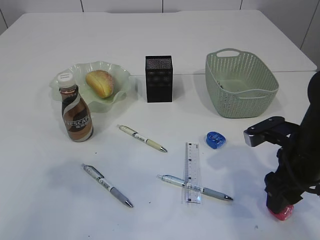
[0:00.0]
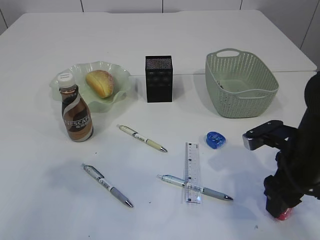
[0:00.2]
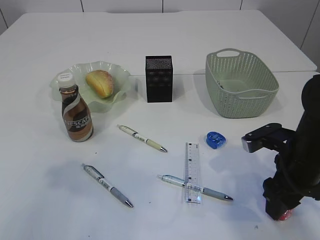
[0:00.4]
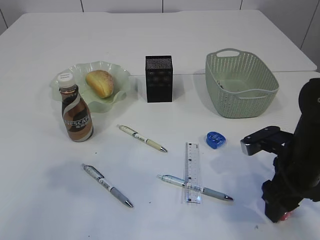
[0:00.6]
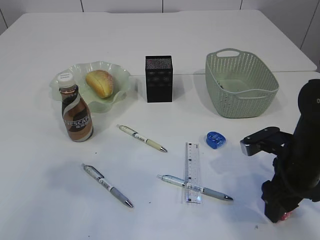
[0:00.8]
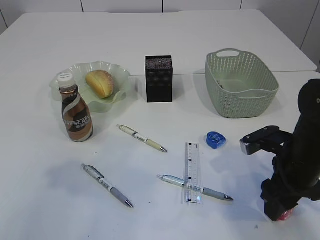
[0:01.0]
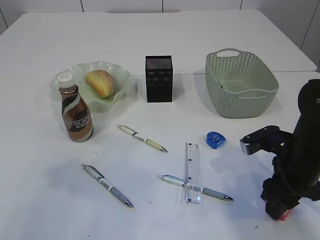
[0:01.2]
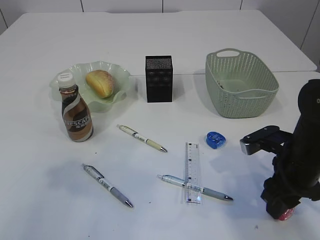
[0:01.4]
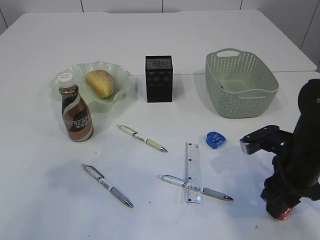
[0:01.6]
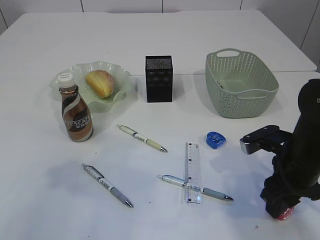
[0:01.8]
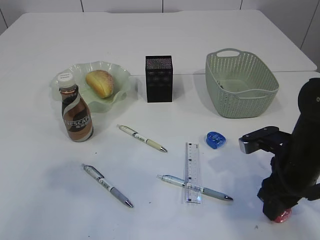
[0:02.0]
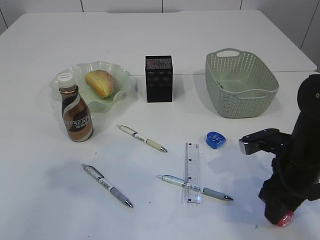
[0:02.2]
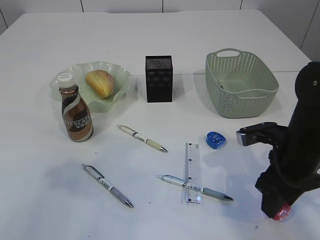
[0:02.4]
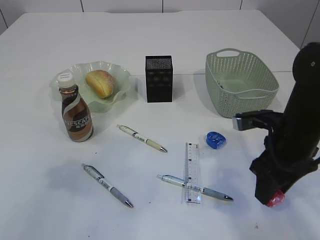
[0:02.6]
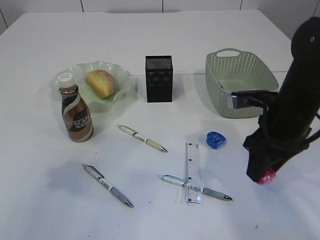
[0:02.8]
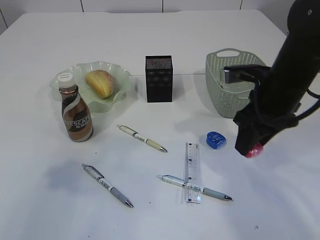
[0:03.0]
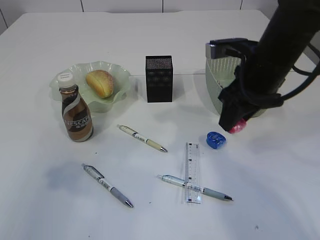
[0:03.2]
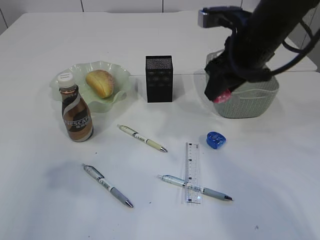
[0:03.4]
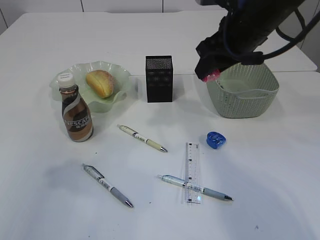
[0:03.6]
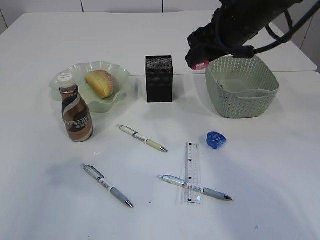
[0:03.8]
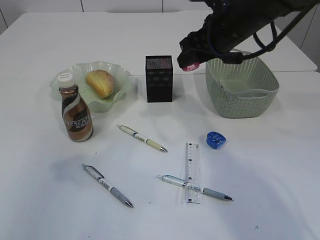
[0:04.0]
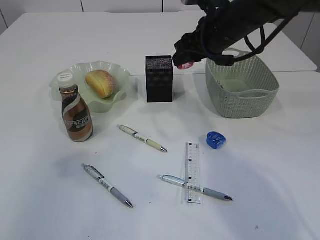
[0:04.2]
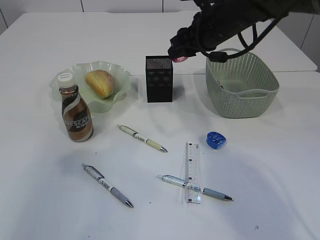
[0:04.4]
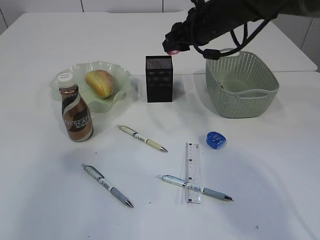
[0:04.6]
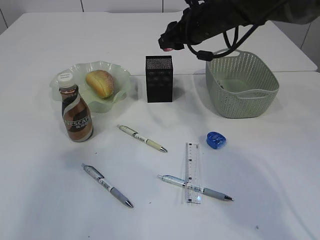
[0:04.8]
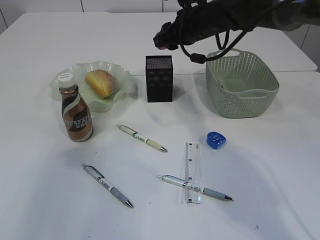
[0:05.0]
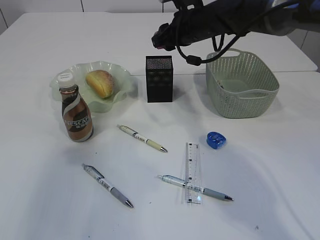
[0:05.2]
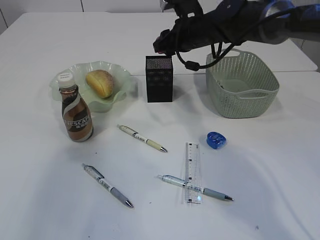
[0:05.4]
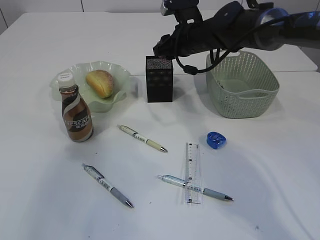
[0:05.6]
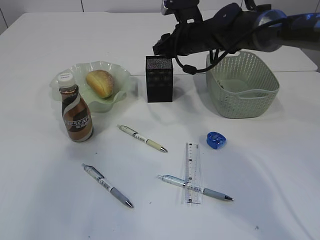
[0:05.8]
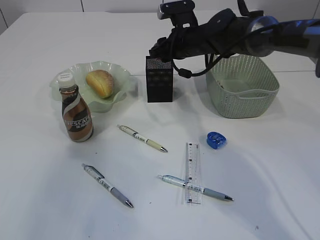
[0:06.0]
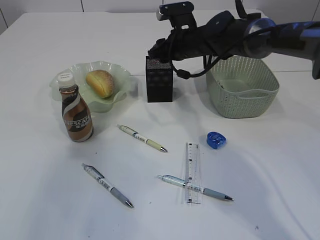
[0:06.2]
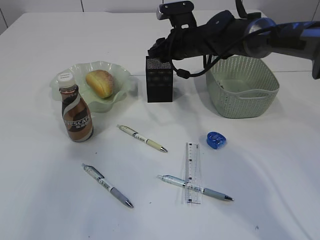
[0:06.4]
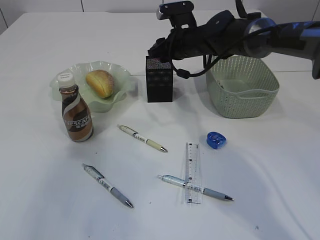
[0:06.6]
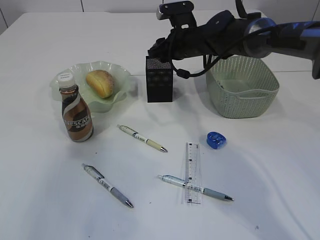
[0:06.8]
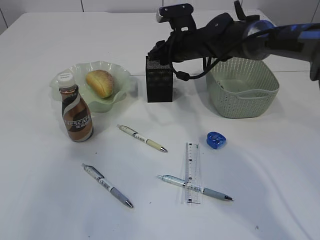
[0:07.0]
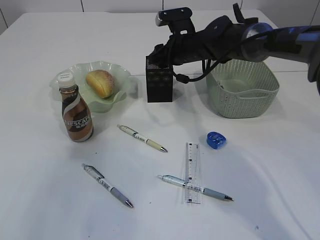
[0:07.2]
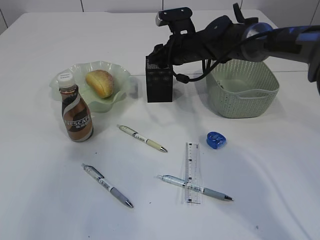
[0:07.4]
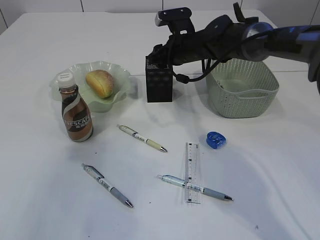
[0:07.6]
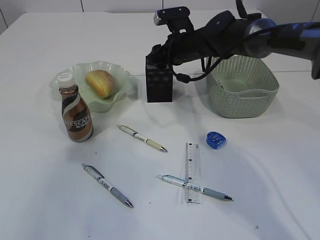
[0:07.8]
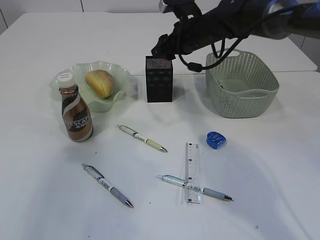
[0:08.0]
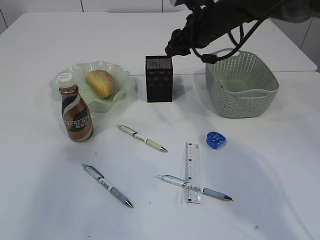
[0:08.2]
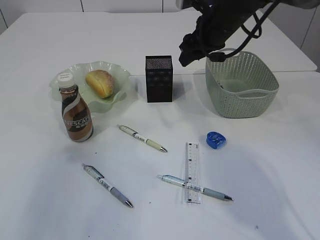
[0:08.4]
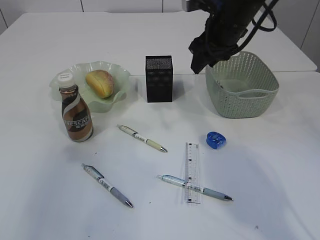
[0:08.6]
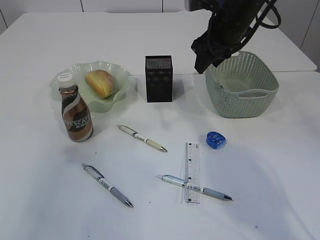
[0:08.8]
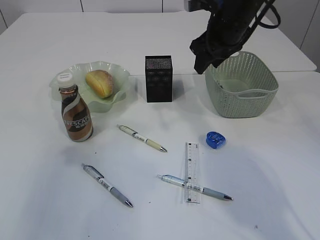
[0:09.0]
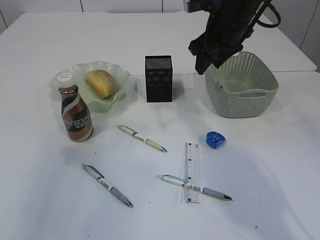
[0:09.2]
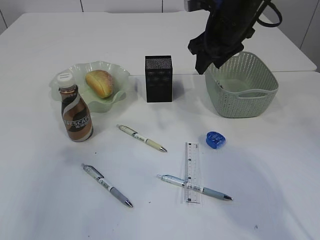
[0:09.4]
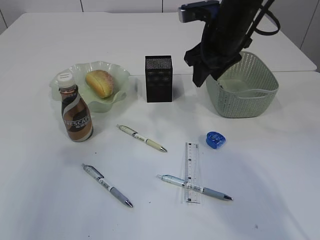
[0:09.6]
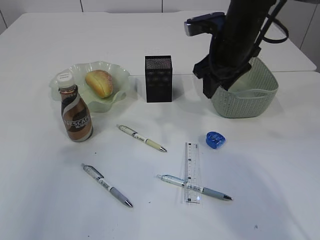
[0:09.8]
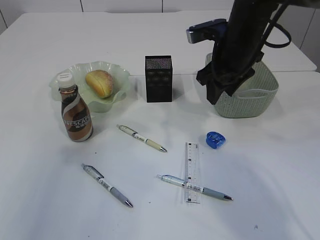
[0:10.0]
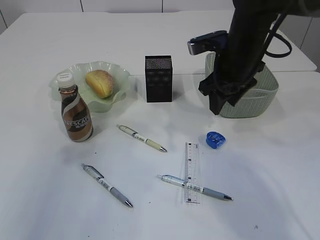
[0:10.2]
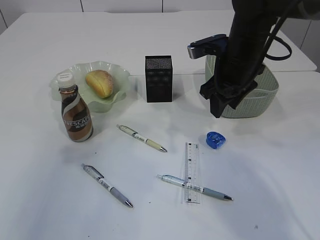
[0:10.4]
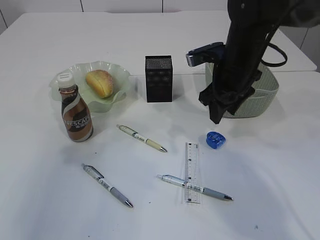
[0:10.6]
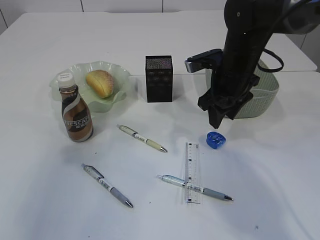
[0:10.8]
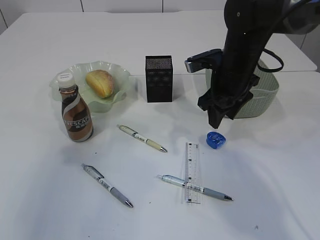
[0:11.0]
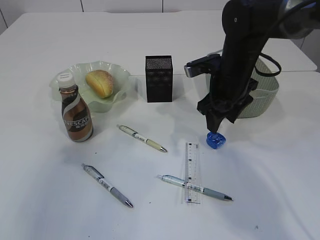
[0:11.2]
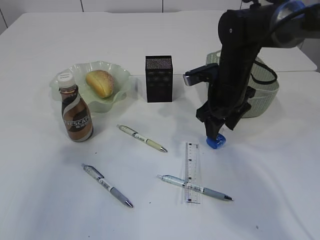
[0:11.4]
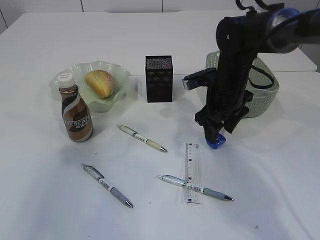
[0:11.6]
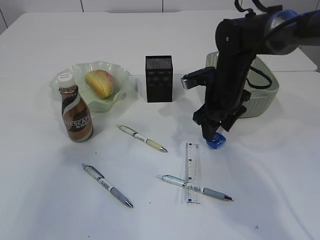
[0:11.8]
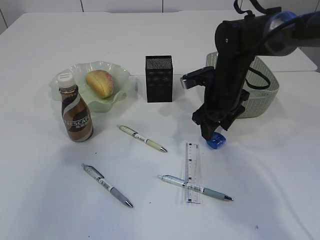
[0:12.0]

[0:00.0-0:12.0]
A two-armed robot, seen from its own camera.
Step, 0:00.0 to 0:02.8: Pick up the red pencil sharpener.
Step, 0:03.0 to 0:08.2: Place the red pencil sharpener into the pen holder.
0:00.0 to 0:01.6: The grippers stay close to where they were, moving slightly.
0:01.6 to 0:03.0: The right gripper travels upward and forward by some 10 cm.
0:03.0 to 0:04.4: The right gripper is displaced forward and to the left by some 15 cm.
0:04.4 to 0:06.0: The right gripper shifts roughly 10 cm forward and downward.
0:06.0 to 0:07.6: There are only small adjustments of the grippers.
0:07.6 to 0:09.0: The right gripper goes roughly 15 cm upward, backward and to the right.
0:09.0 to 0:10.4: The right gripper is displaced backward by some 5 cm.
0:10.4 to 0:12.0: The right gripper goes some 5 cm downward.

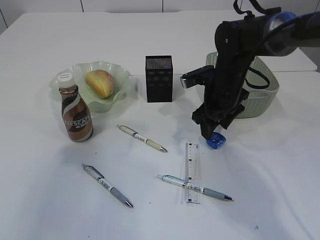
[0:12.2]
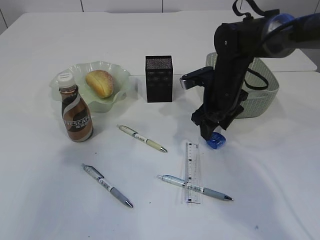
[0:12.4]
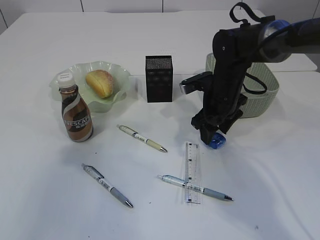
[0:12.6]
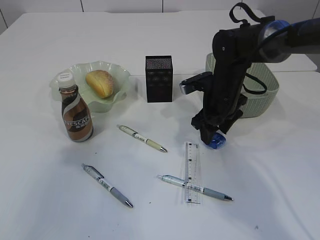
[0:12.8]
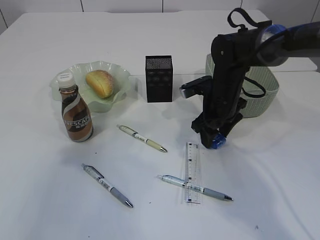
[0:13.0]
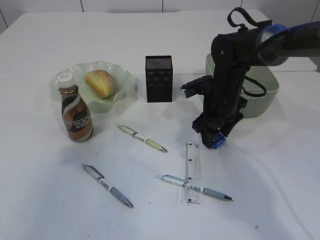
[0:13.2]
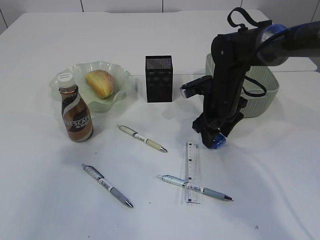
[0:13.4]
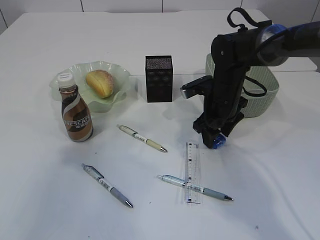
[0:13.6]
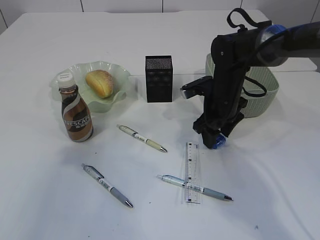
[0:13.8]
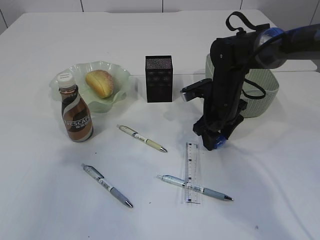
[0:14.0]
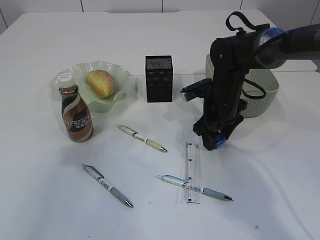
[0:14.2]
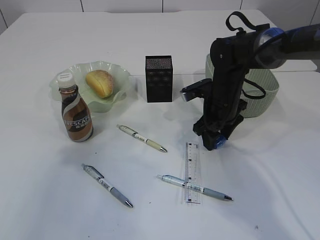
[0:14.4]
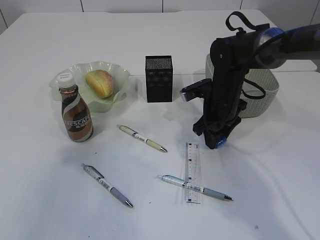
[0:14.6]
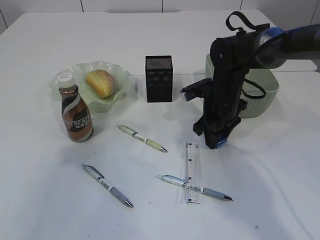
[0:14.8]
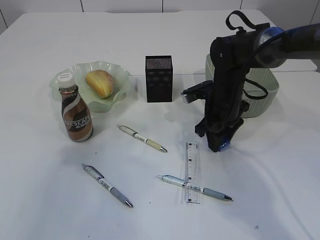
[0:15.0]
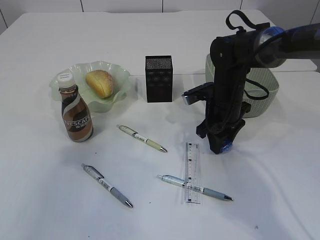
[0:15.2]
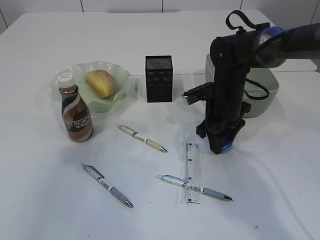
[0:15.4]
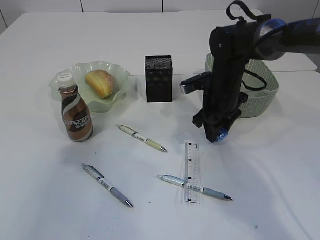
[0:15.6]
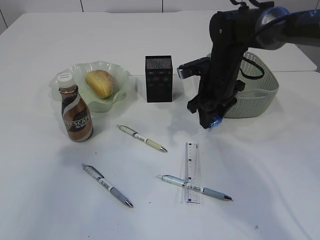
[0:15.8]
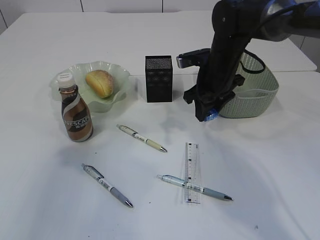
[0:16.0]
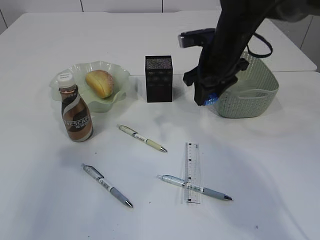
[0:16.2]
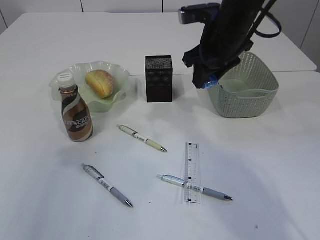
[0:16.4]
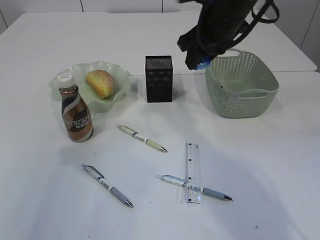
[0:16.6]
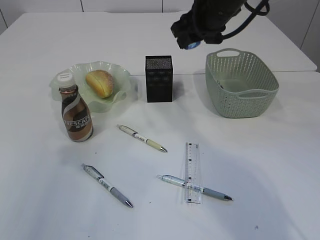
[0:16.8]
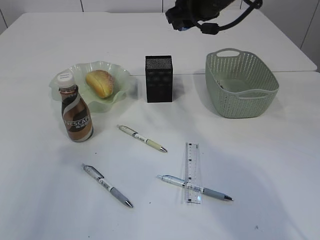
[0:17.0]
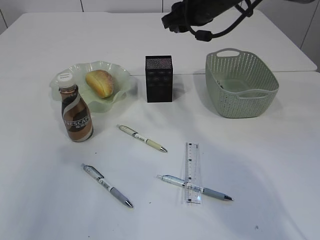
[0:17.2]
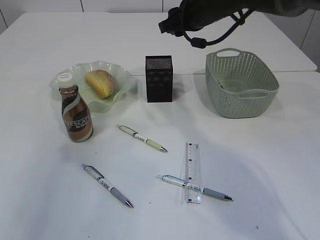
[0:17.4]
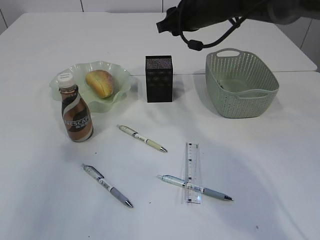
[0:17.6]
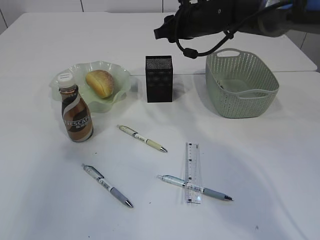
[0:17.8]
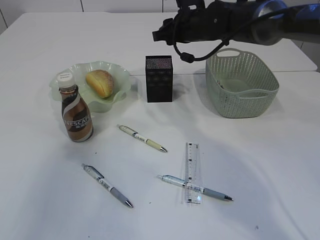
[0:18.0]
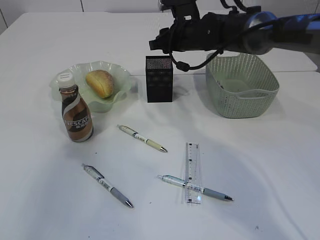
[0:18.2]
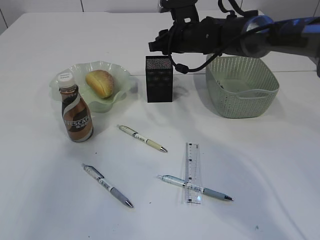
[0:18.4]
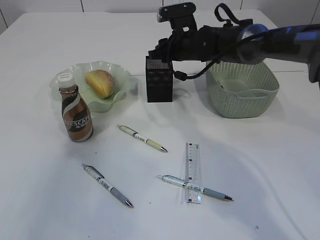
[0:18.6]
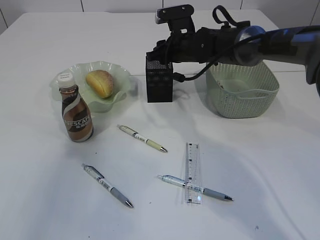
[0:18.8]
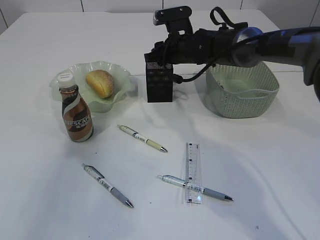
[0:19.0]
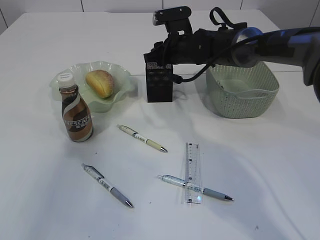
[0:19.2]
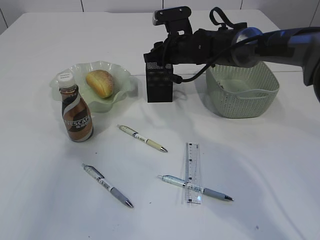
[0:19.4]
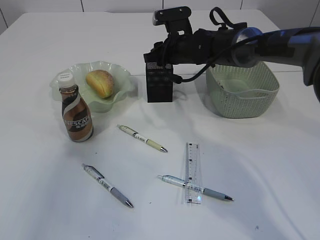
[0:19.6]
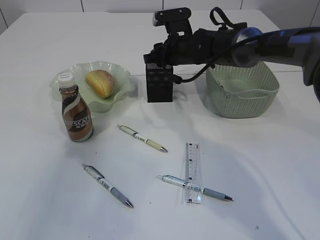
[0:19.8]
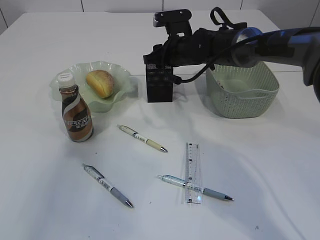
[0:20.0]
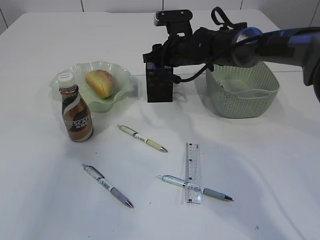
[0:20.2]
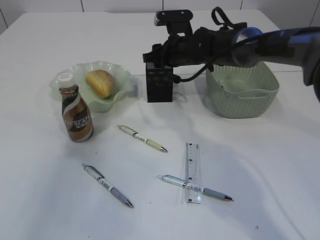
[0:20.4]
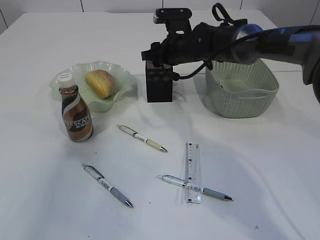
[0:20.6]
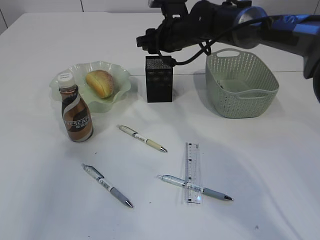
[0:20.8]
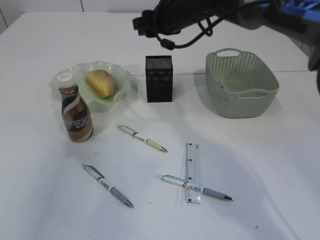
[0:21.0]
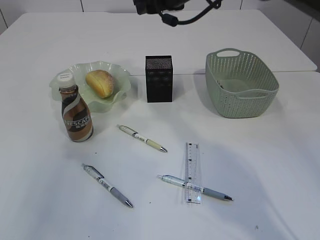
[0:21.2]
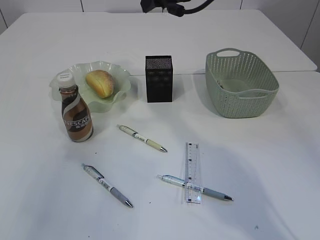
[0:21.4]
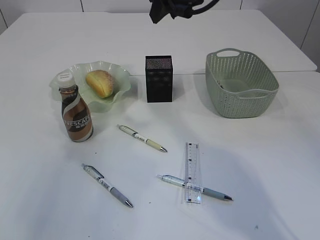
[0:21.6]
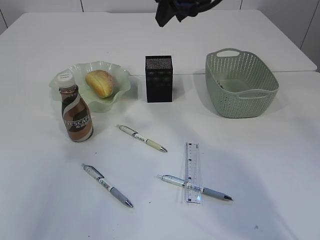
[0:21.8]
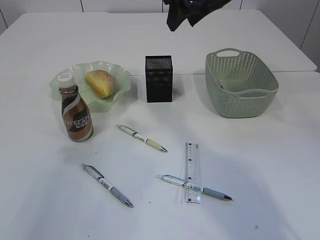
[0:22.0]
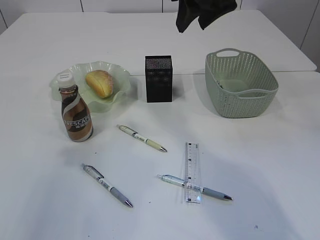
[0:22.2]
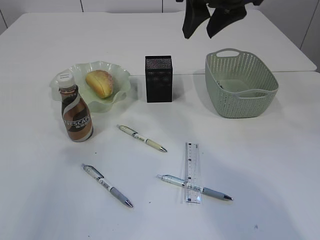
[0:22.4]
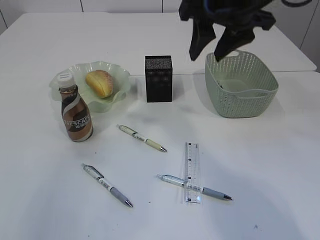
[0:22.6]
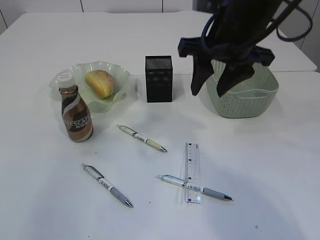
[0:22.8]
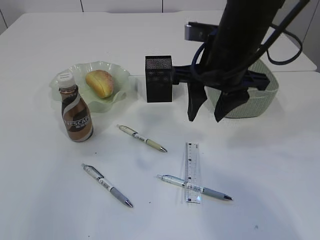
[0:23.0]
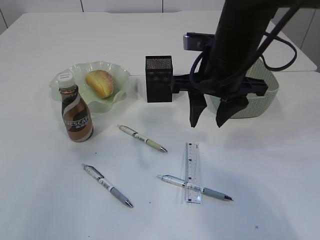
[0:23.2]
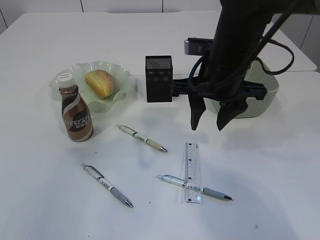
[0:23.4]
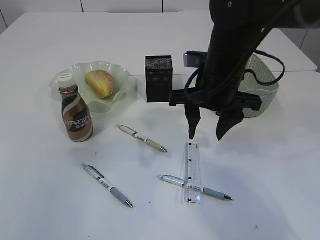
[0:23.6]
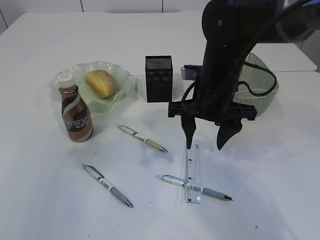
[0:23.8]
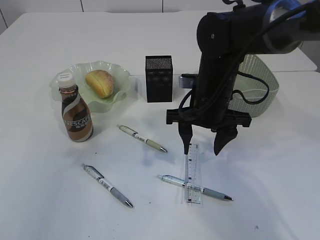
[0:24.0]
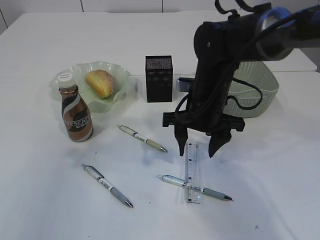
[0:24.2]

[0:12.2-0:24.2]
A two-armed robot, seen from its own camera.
Step, 0:12.2 to 0:16.0: Pick up the blue pencil sharpener.
Step, 0:16.2 to 0:20.8: Place the blue pencil sharpener into the pen holder.
0:12.2 to 0:15.2: There are only small adjustments of the grippers.
0:15.2 to 0:16.6: The right gripper goes roughly 15 cm upward.
0:16.6 to 0:18.2: The right gripper is displaced forward and downward by some 10 cm.
0:18.2 to 0:19.8: The grippers stay close to where they were, moving slightly.
0:19.8 to 0:21.2: The right gripper heads upward, covering some 15 cm.
0:21.2 to 0:22.6: The right gripper is displaced backward and to the right by roughly 15 cm.
0:22.6 to 0:24.2: The right gripper goes roughly 15 cm downward.
